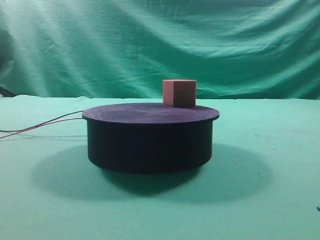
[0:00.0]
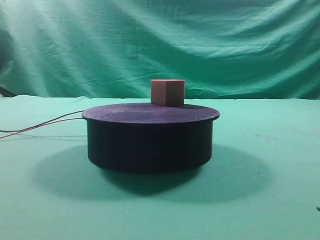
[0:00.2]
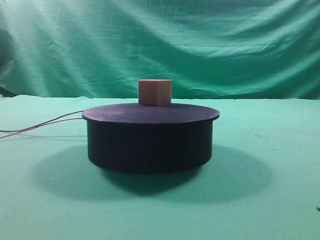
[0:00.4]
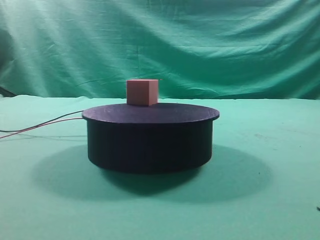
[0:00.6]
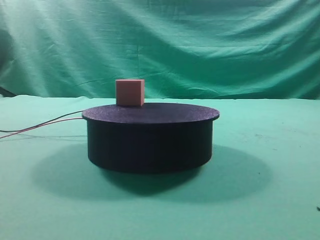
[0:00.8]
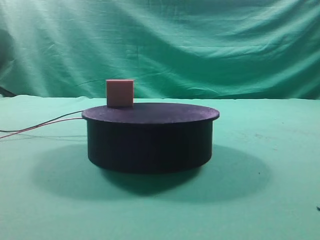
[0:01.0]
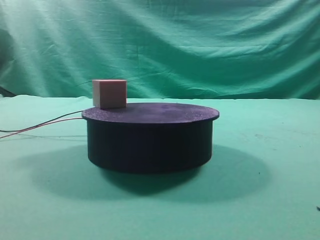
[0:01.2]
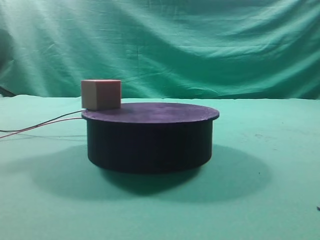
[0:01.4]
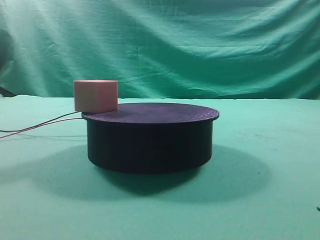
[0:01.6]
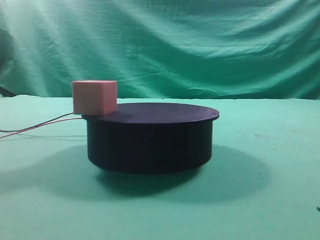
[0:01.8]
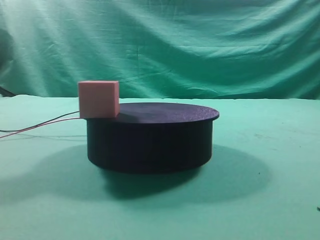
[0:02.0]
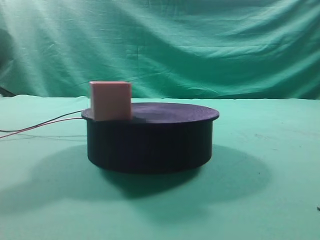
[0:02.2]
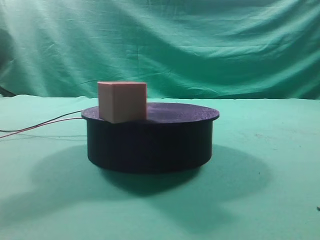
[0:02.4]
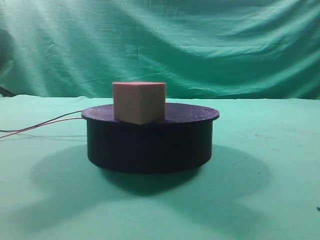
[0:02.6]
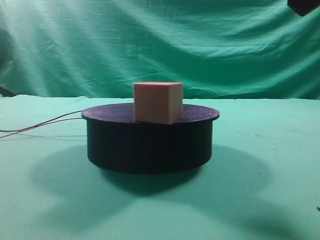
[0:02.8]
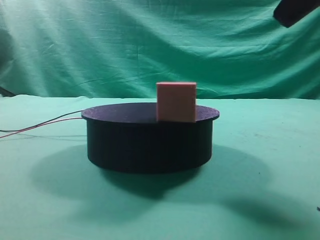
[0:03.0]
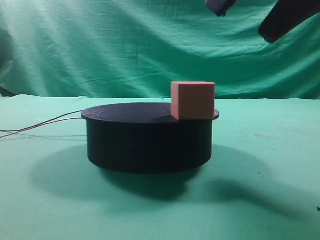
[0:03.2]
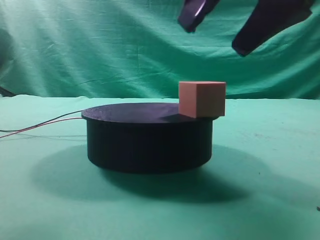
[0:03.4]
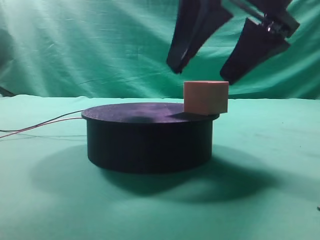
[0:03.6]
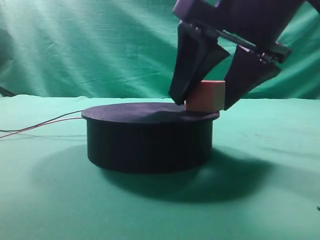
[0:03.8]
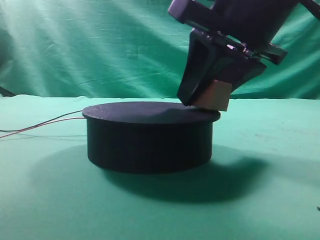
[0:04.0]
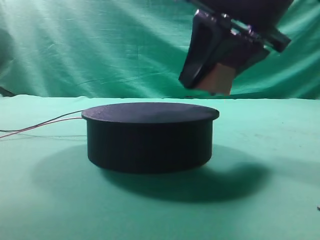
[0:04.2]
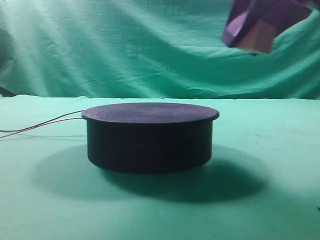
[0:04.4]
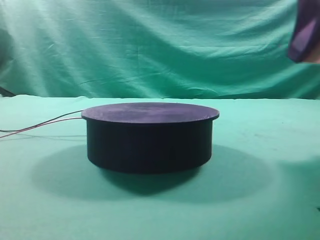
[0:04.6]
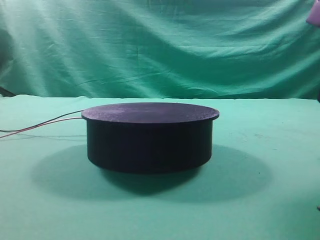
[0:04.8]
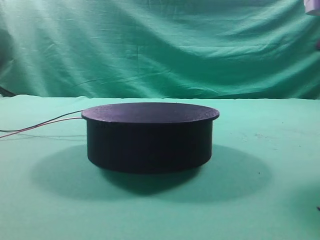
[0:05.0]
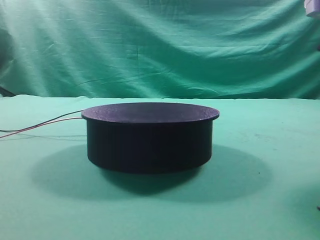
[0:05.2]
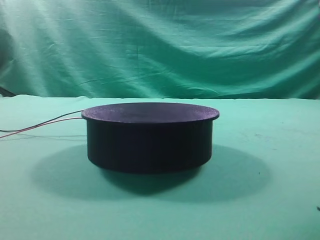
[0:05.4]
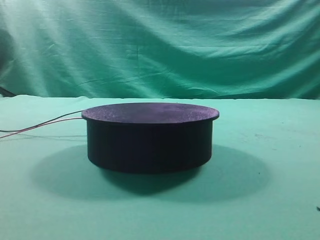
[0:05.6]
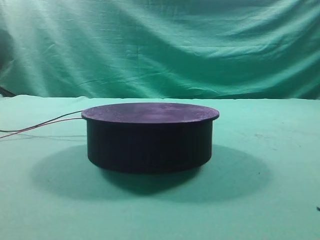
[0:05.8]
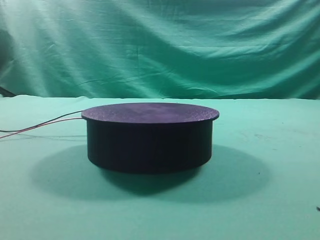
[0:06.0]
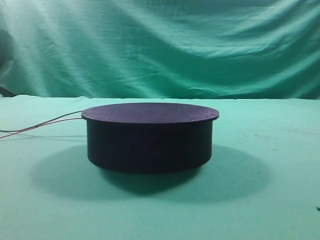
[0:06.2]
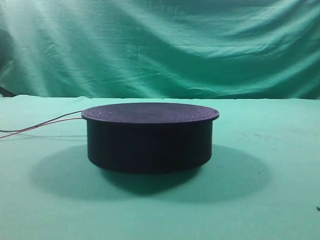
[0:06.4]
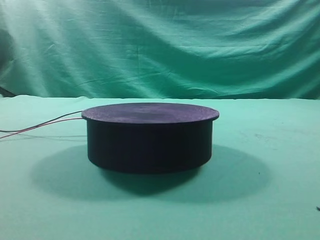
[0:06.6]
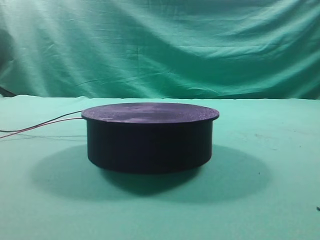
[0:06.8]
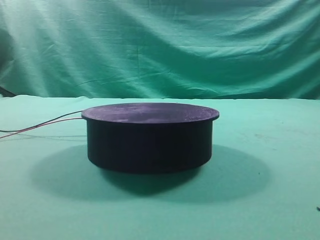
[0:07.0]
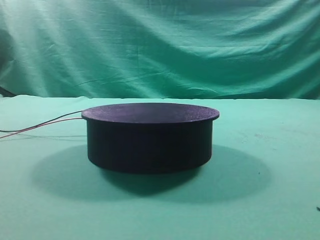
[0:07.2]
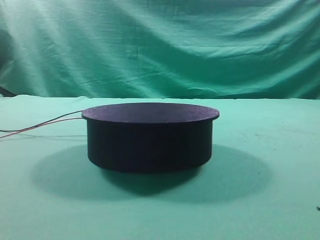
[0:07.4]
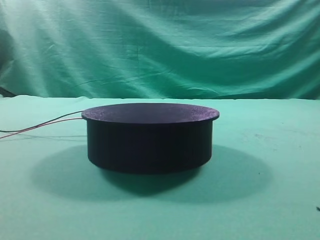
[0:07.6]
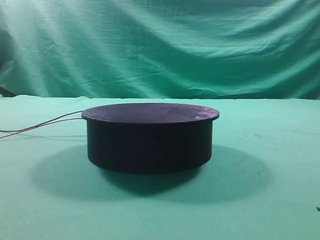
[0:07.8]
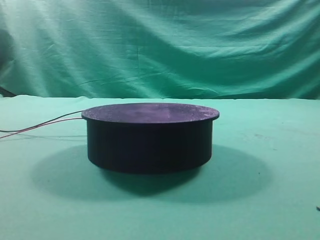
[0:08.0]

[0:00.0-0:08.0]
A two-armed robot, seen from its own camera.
Task of the whole recording: grasp the rotating cube-shaped block on the turntable and place it on the table.
Step, 0:00.0 to 0:04.2: Grasp the rotating cube-shaped block on the turntable.
Step, 0:04.4 to 0:05.2: Place the cube on the desk.
